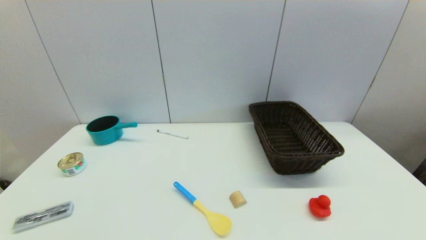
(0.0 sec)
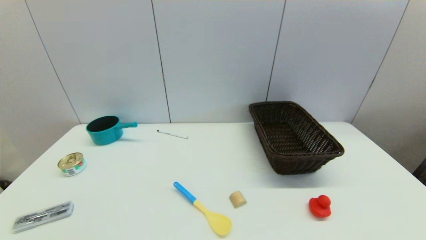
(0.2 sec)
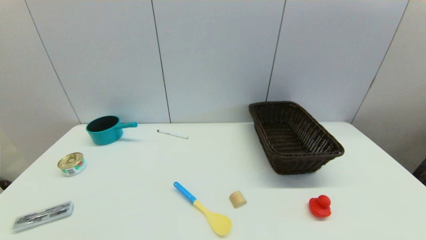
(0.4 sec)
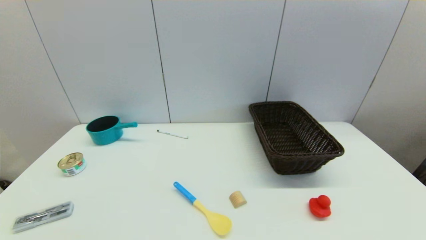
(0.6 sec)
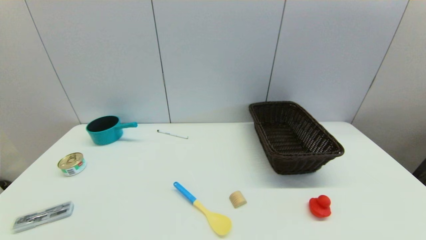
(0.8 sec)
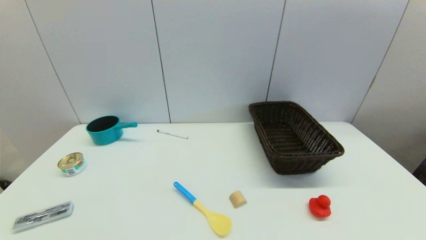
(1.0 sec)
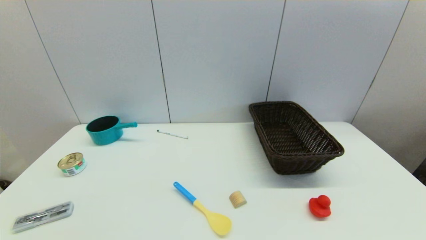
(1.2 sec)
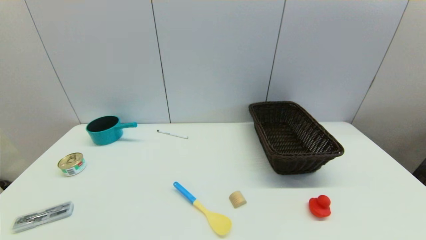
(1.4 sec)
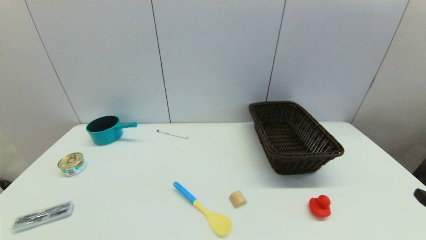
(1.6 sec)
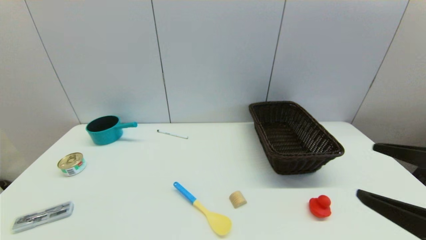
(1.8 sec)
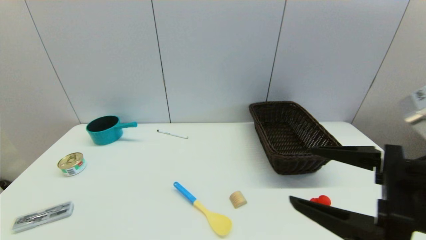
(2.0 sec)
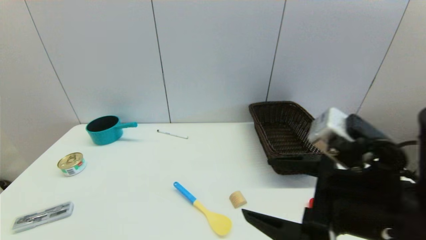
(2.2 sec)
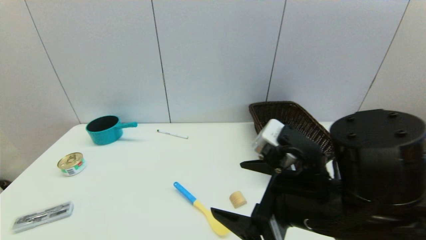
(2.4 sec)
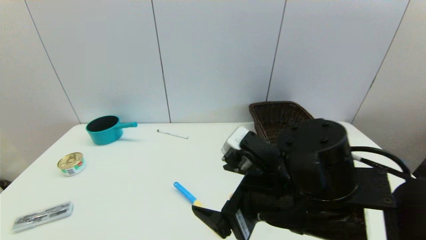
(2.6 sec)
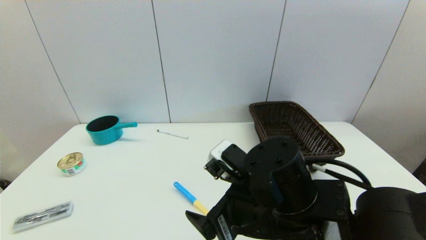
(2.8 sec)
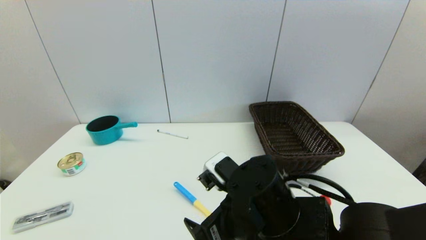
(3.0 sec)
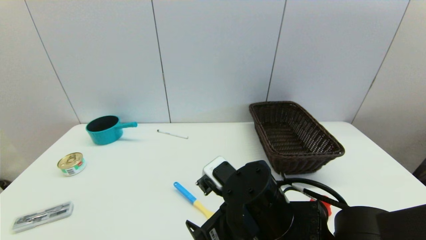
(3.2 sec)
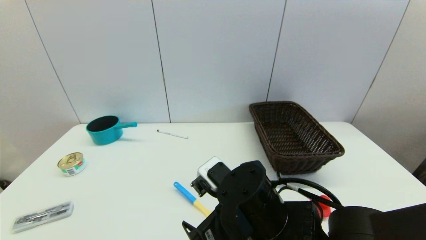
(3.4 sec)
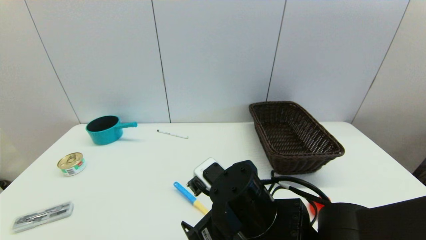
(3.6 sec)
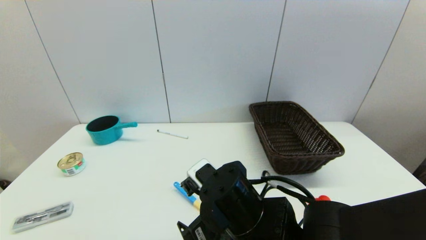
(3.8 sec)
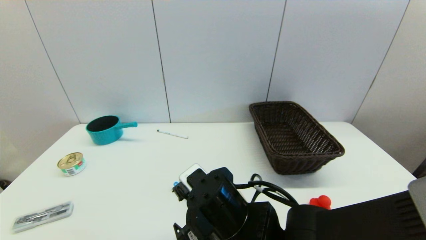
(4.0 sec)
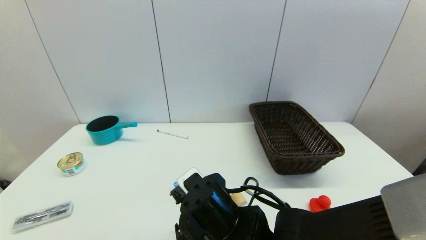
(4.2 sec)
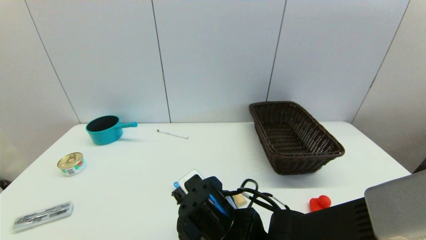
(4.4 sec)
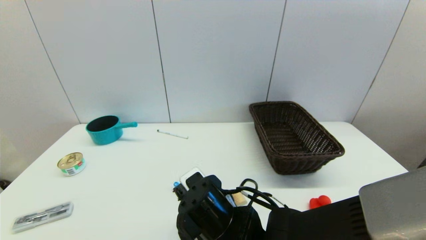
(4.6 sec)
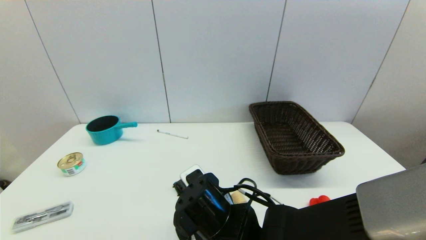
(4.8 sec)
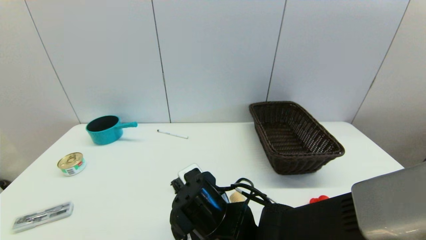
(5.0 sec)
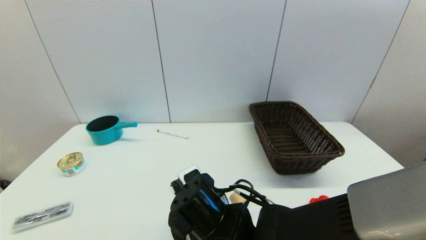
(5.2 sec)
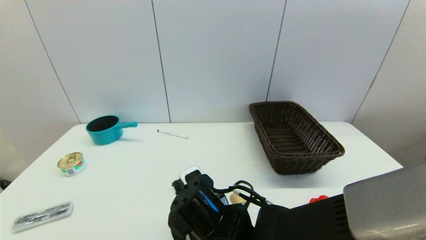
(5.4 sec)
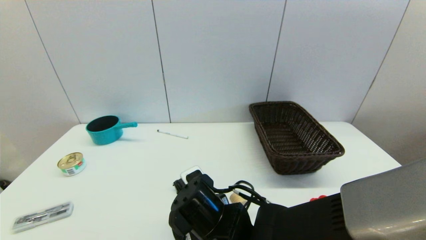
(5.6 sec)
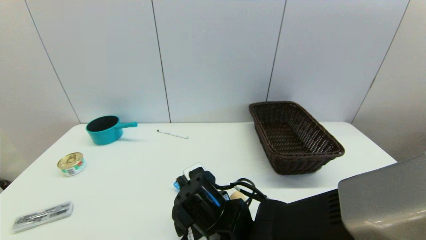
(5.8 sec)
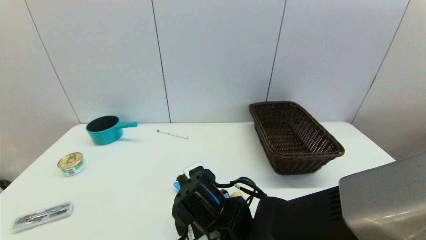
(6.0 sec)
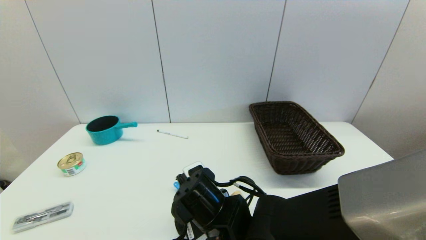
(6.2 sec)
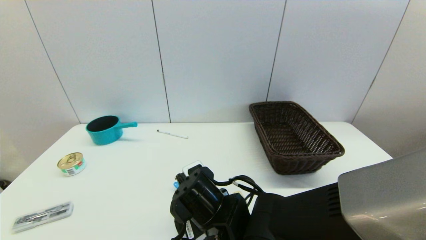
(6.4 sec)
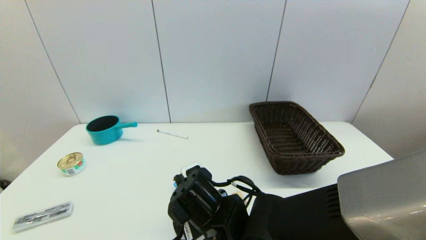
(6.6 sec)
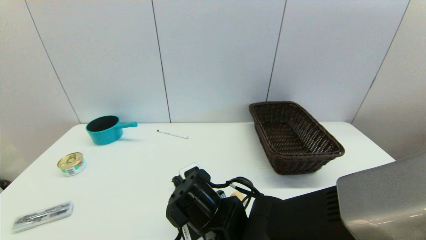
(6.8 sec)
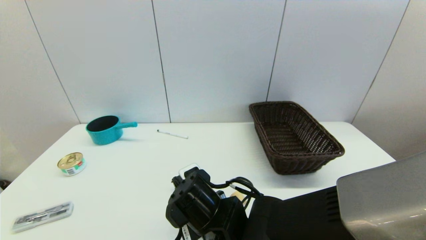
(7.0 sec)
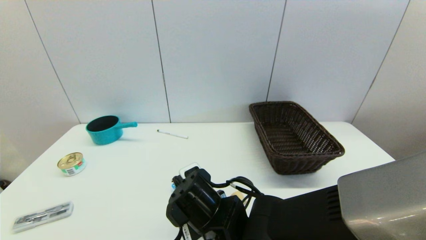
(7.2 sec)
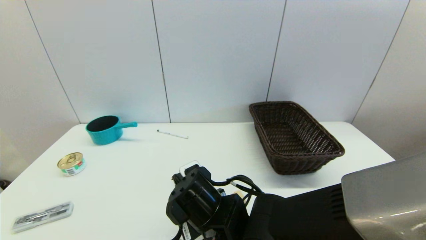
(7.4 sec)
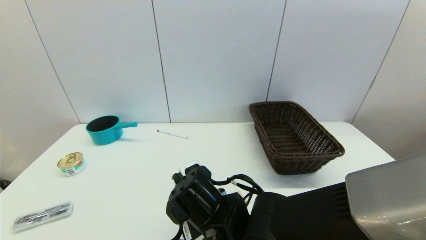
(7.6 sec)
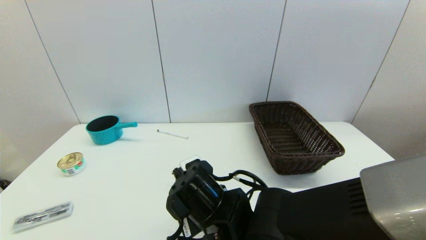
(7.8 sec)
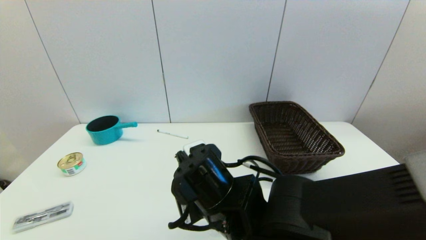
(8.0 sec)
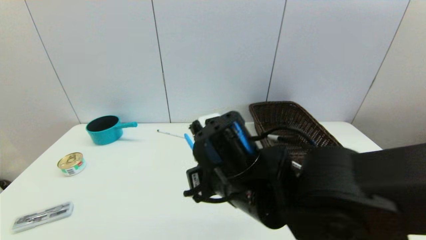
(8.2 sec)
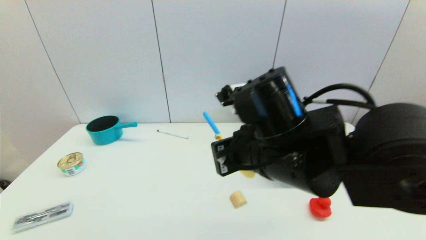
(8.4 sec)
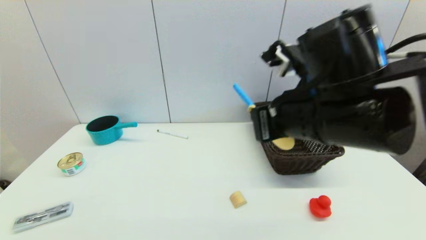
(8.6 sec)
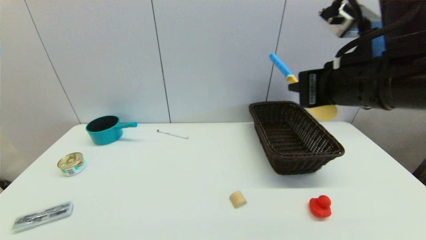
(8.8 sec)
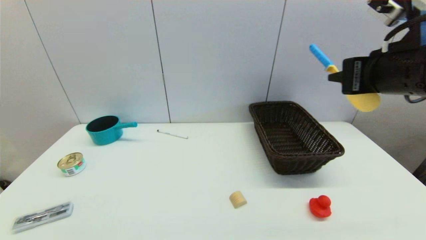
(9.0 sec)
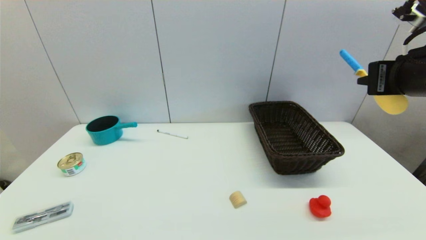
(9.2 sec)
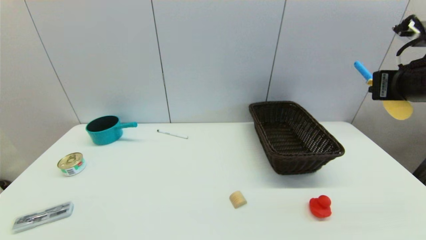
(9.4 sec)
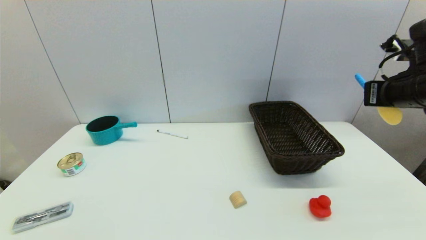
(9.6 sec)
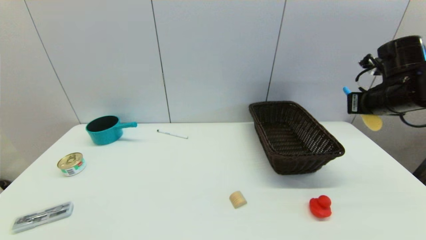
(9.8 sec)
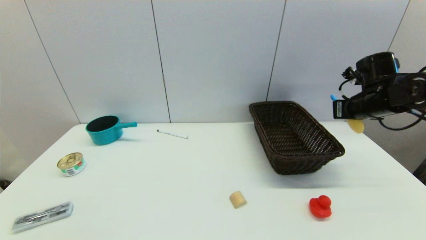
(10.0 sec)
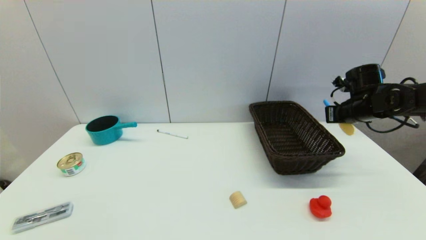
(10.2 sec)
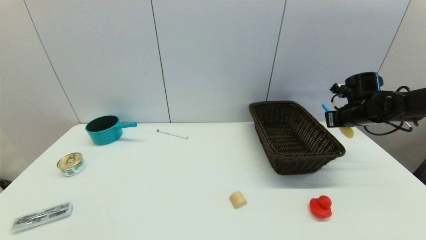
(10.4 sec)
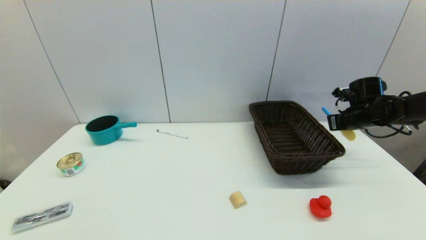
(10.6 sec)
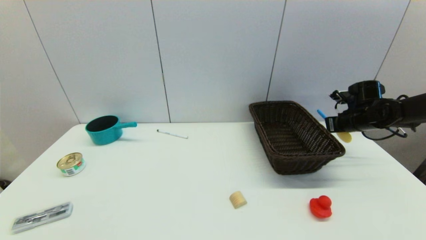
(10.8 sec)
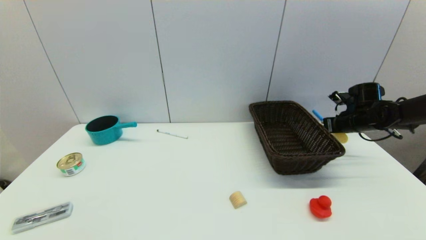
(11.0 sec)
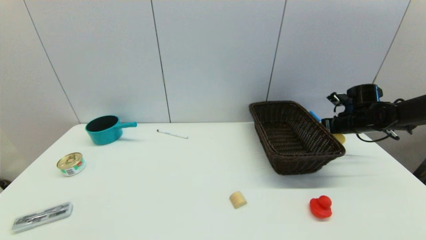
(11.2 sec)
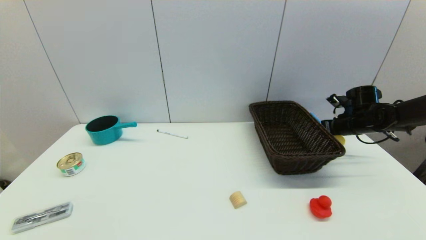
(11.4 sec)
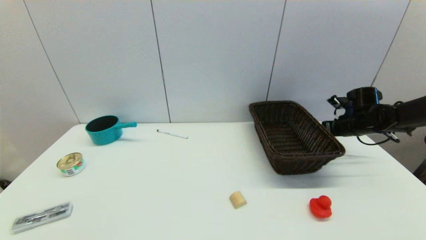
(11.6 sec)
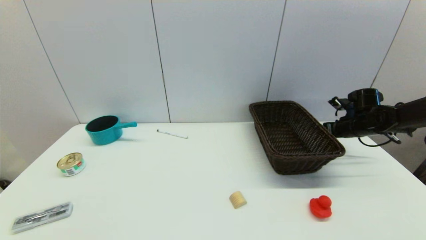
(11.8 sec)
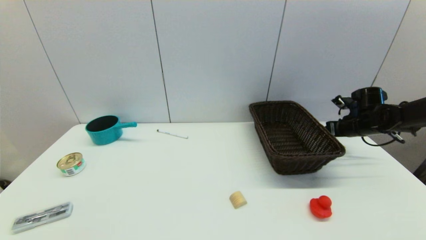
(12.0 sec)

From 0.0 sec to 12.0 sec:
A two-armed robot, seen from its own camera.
Step, from 1.6 sec to 7.2 sec: Grasp the spoon with right gripper.
Step, from 7.4 sec to 11.8 sec: Place the spoon on the table with right gripper.
From 1.6 sec to 3.0 sec: The right gripper moves to the left and forward, about 25 cm.
From 3.0 sec to 4.4 sec: The right gripper changes place by roughly 5 cm.
From 4.4 sec to 6.0 sec: The grippers make only small movements.
From 6.0 sec to 7.6 sec: The right gripper closes its fingers.
From 7.6 sec to 9.0 sec: The right gripper shifts roughly 35 cm to the right and upward.
From 9.0 sec to 10.4 sec: The right gripper shifts about 30 cm forward, downward and to the right.
From 10.4 sec to 12.0 sec: The right gripper moves about 5 cm, and opens its fingers.

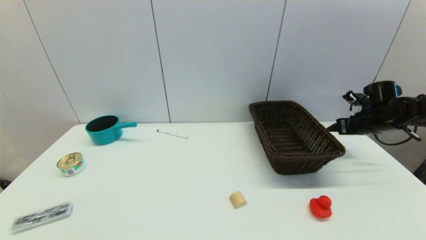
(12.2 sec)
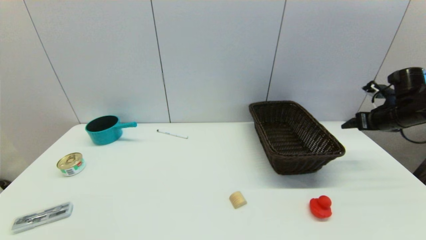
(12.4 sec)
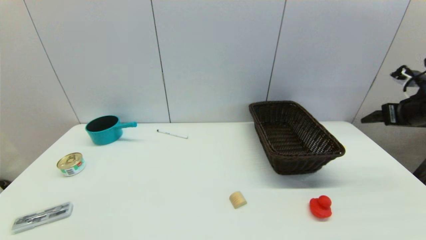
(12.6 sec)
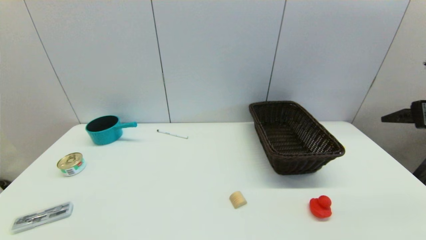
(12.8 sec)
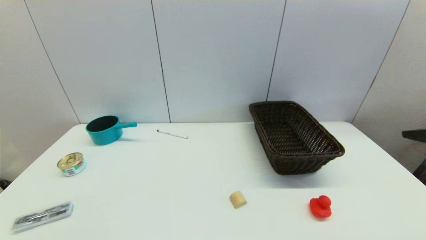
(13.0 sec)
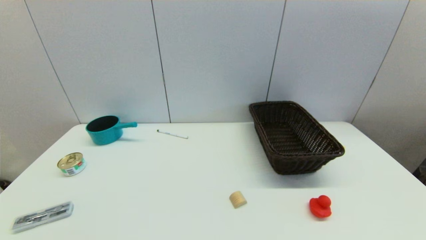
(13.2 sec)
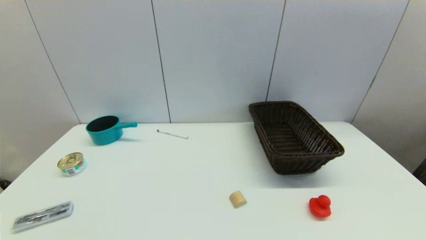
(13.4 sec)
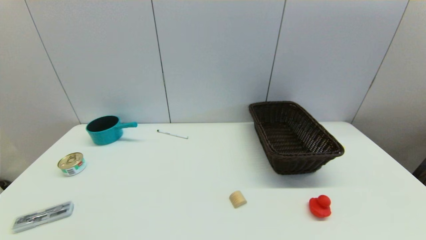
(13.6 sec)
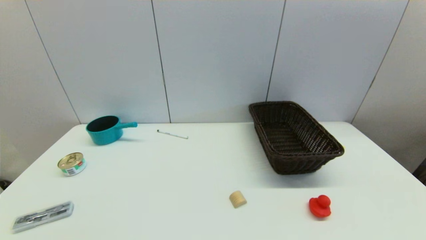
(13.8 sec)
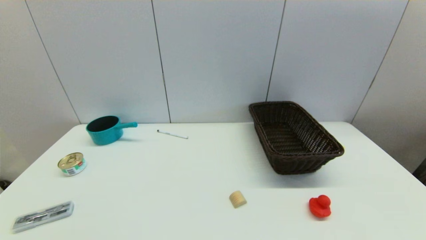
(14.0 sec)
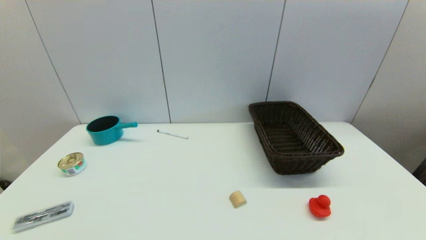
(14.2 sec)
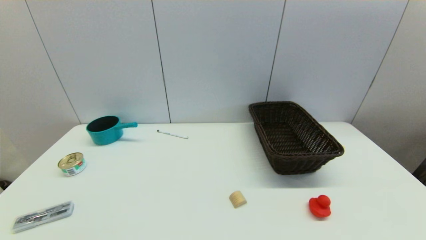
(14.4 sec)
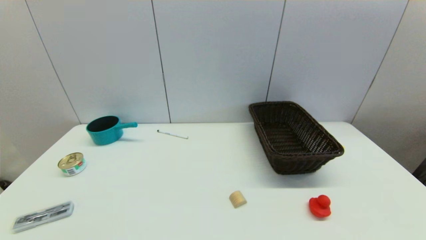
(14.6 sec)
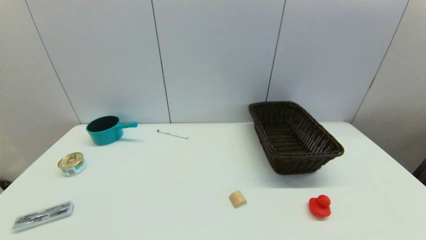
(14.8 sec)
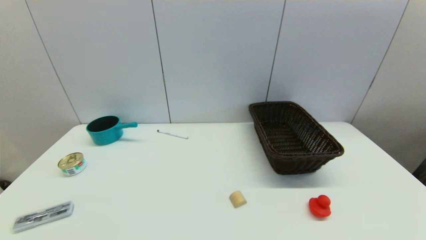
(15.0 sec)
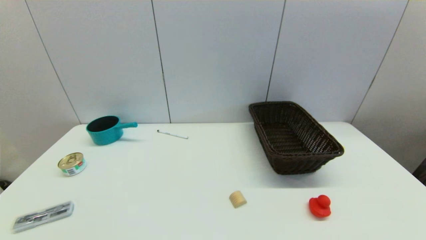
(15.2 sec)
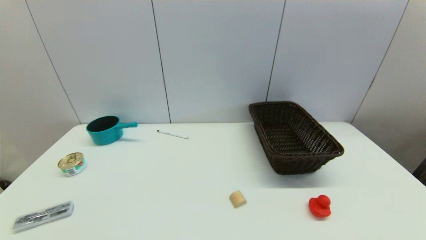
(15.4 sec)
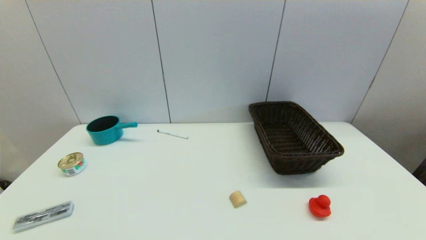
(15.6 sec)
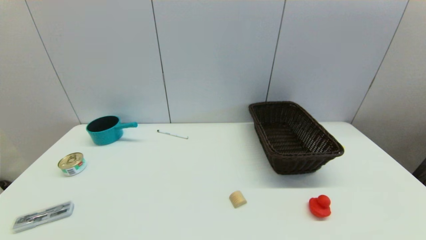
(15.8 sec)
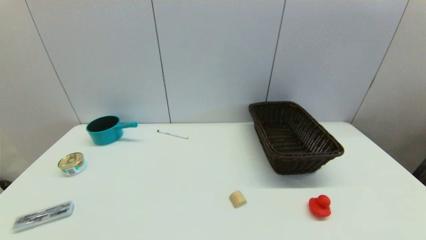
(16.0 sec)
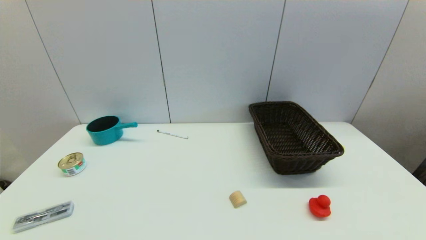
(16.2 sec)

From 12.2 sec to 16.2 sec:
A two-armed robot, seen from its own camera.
From 12.2 sec to 13.6 sec: The right gripper is displaced backward by roughly 40 cm.
